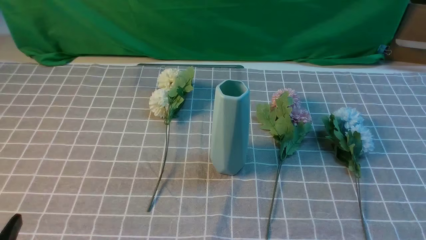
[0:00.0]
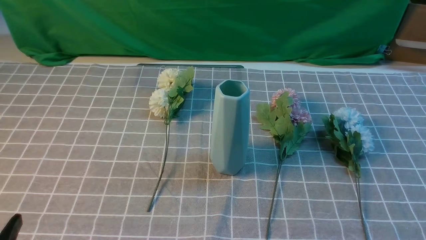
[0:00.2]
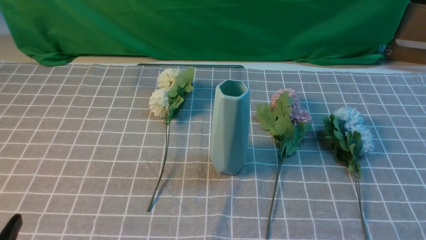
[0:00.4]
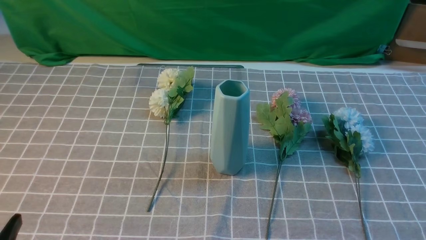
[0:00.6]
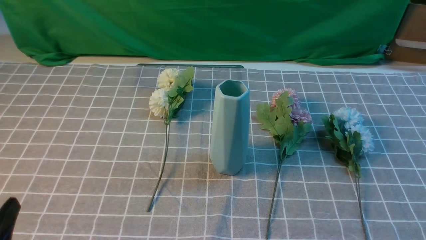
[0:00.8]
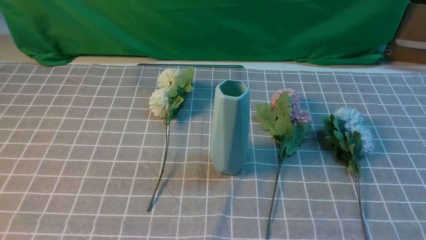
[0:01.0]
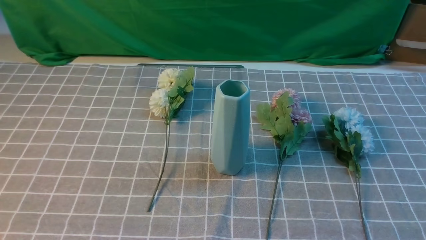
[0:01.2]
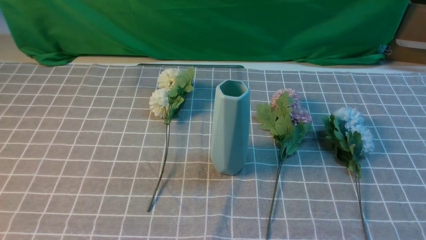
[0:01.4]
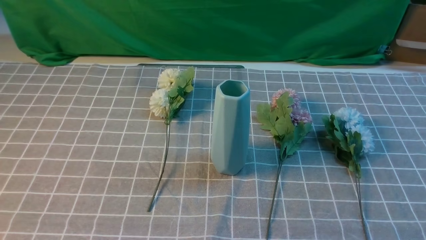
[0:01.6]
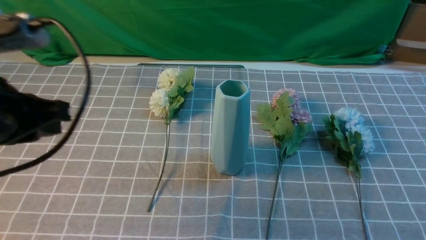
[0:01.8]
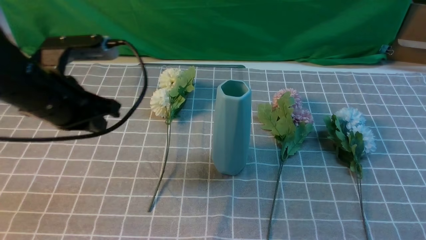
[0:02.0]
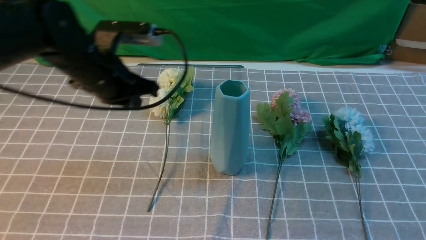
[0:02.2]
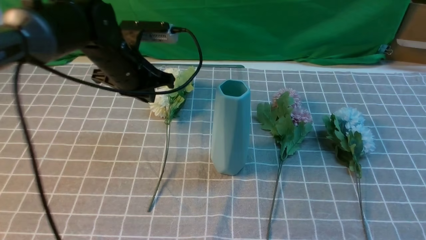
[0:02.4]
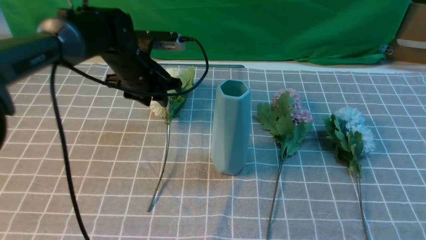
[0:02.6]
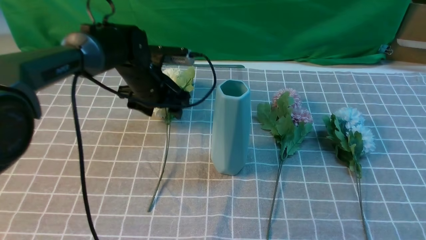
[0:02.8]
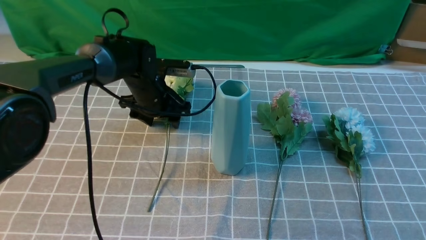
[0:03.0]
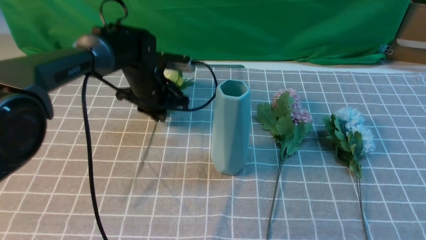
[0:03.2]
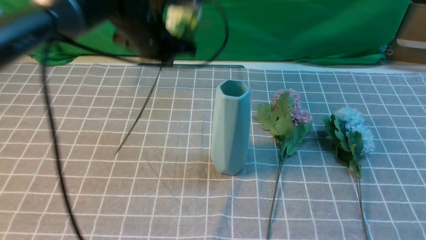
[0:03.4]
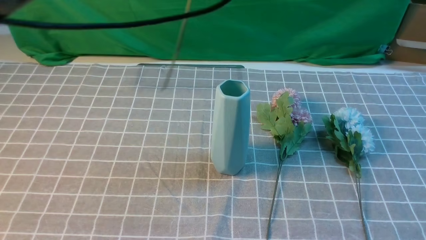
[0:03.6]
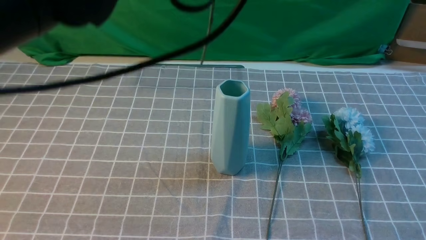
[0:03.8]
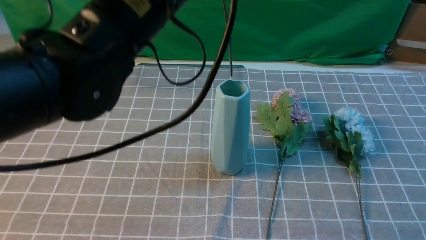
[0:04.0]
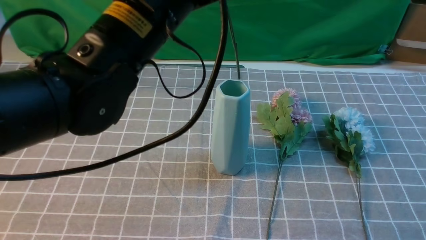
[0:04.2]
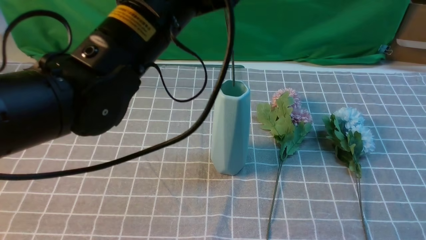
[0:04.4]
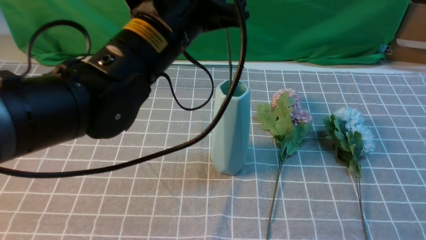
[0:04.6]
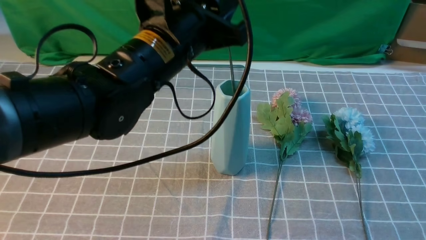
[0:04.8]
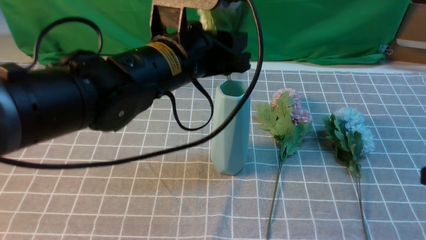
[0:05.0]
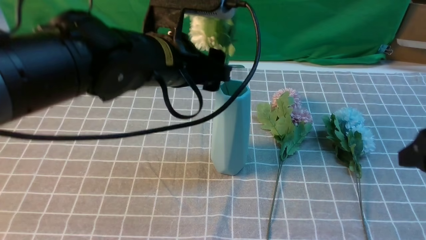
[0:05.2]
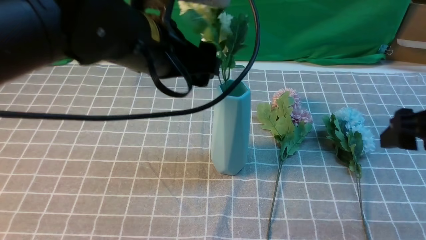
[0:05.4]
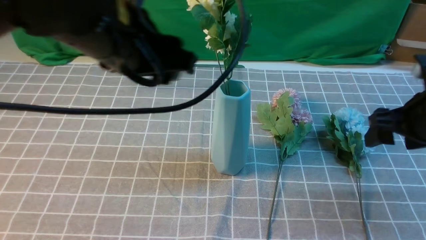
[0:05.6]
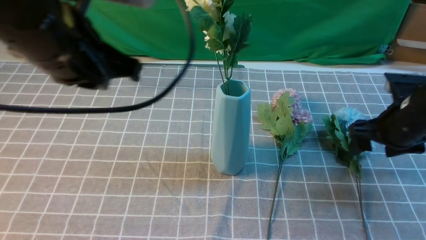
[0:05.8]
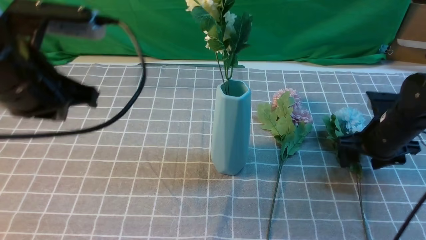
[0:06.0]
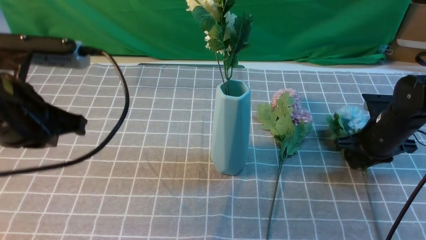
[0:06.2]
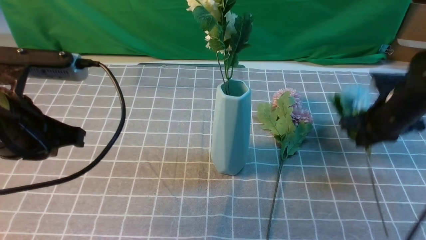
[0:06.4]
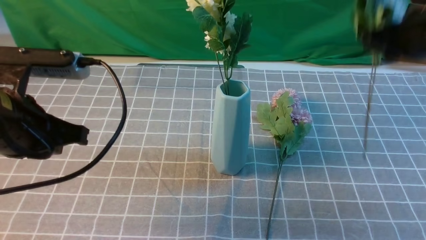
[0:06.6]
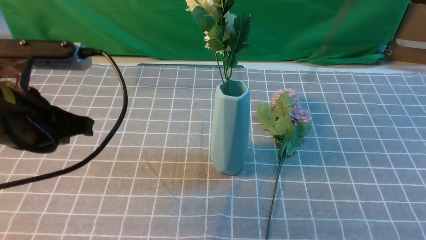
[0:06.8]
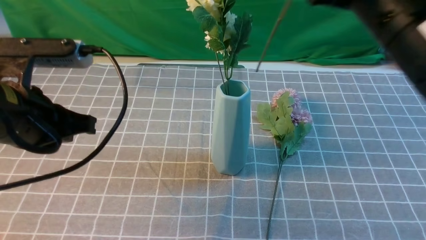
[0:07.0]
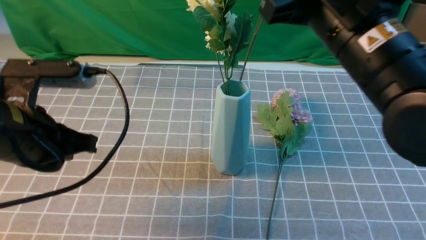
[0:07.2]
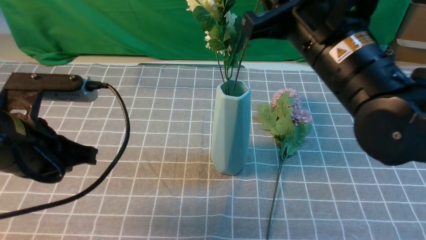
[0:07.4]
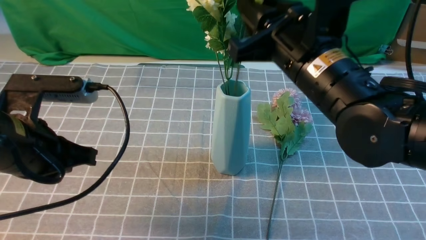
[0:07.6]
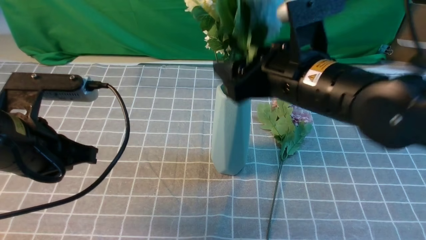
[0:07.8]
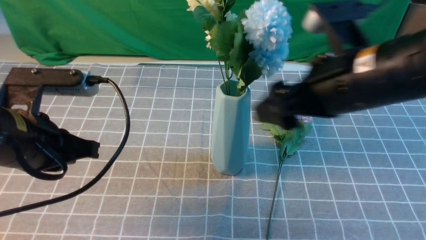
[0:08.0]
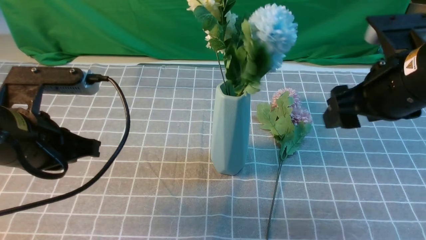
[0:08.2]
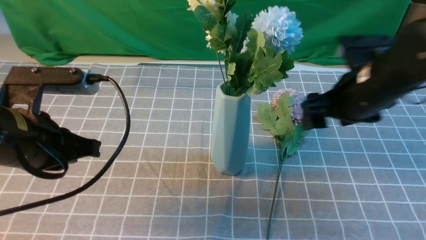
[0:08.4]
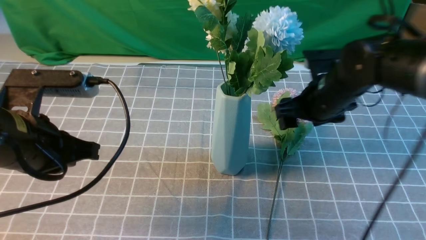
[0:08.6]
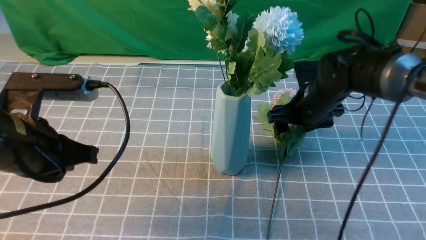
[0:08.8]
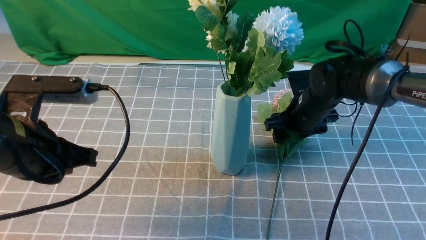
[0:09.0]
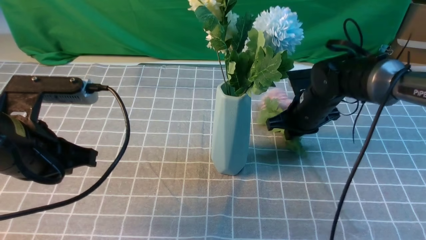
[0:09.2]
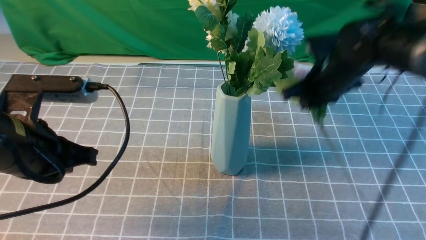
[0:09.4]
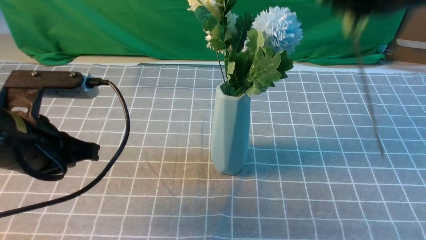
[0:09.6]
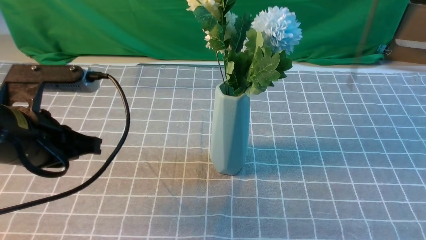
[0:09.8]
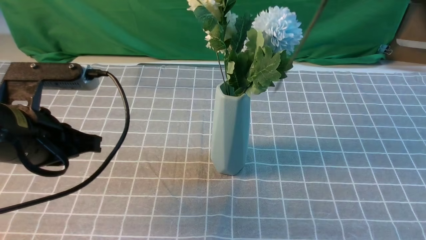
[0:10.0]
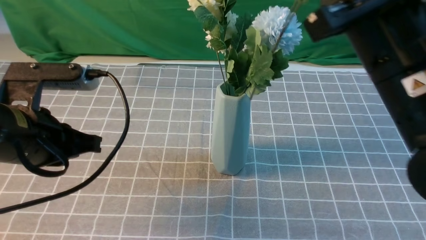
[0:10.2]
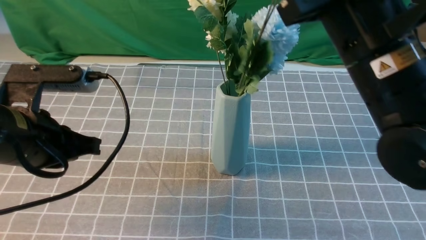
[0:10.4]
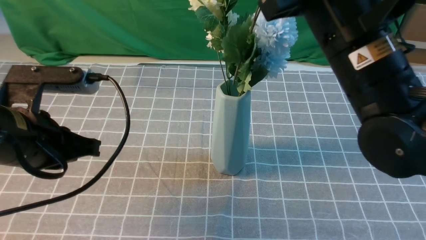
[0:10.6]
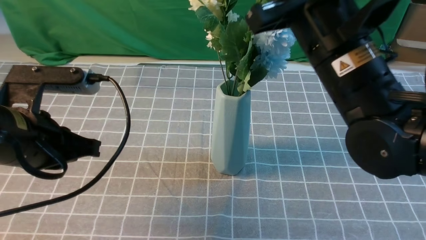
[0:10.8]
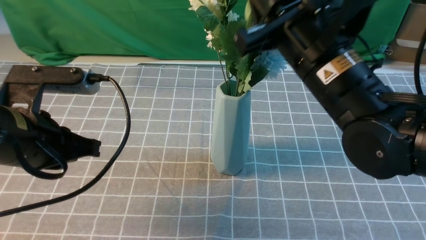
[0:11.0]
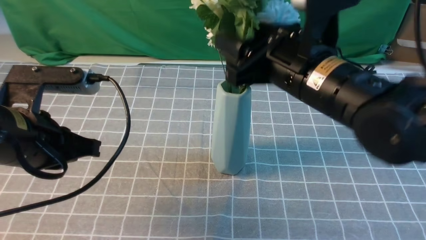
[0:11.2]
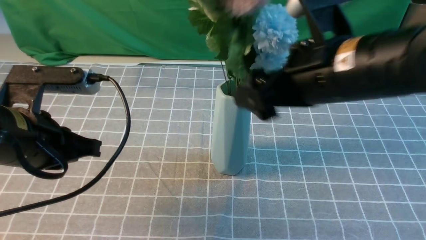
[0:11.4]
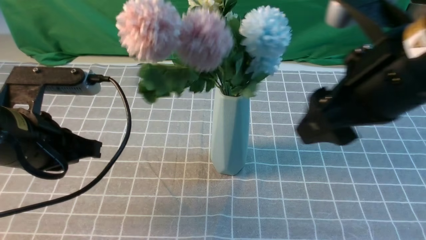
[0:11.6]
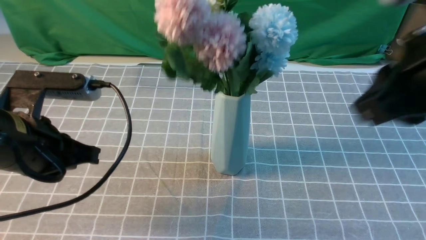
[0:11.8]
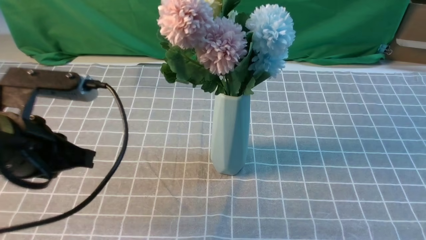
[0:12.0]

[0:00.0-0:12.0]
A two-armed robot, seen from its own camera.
Task of the whole recording: insert the flowers into the vase on the table with the grey tablecloth.
Step, 0:00.0 to 0:03.0: use the left arm to grab a bunch of fresh flowers.
Step, 0:03.2 to 0:05.4: use the left arm to insert the flowers into the vase.
Step, 0:05.6 to 0:06.2: use the right arm to grab a bunch of fresh flowers.
Step, 0:06.4 to 0:08.0: use the right arm to insert the flowers into the vase.
Step, 0:08.4 to 0:09.2: use the right arm to grab a bunch of fresh flowers.
Step, 0:09.4 to 0:11.4: use the right arm to insert the flowers into the vase.
0:01.6 to 0:03.0: The right gripper travels upward and forward by about 10 cm; the left gripper heads forward and downward, covering roughly 35 cm, and opens.
0:03.0 to 0:04.4: The left gripper is displaced upward and backward by some 25 cm, and closes its fingers.
0:04.4 to 0:06.0: The left gripper goes approximately 10 cm to the left, and opens, then closes again. Meanwhile the right gripper travels forward and downward by about 25 cm, and opens up.
0:06.0 to 0:07.6: The left gripper shifts some 5 cm downward. Meanwhile the right gripper goes approximately 25 cm to the left, upward and backward, and closes and opens again.
0:07.6 to 0:09.0: The right gripper heads downward and forward, covering about 20 cm, and opens, then closes once more.
0:09.0 to 0:10.4: The right gripper is displaced upward and backward by some 25 cm, and closes up.
0:10.4 to 0:12.0: The right gripper is displaced backward, to the right and upward by roughly 20 cm, and opens, then closes once more.

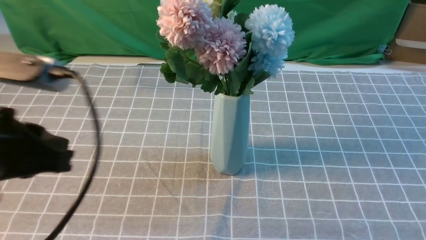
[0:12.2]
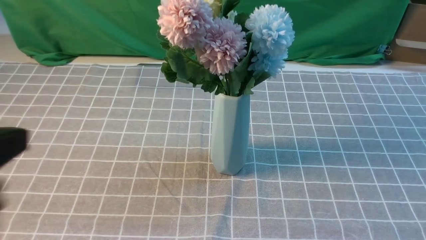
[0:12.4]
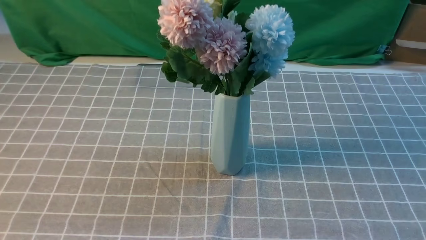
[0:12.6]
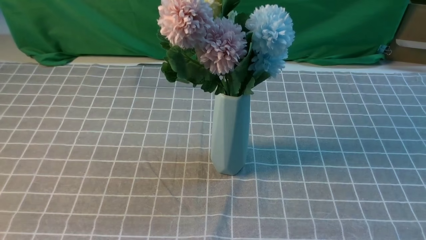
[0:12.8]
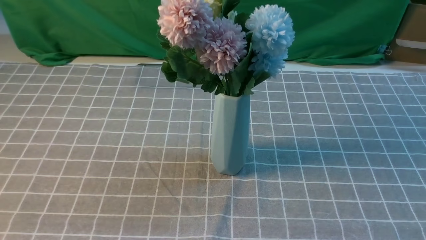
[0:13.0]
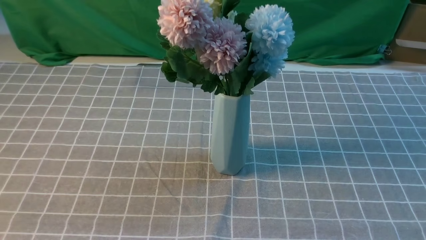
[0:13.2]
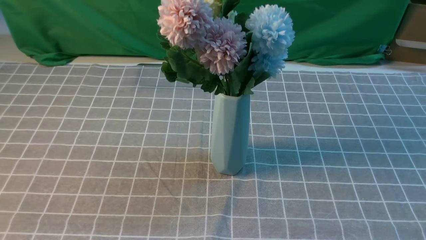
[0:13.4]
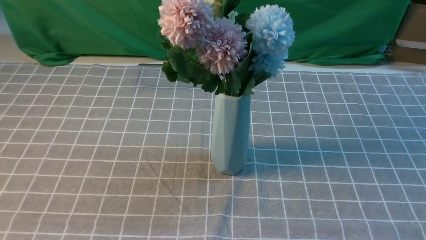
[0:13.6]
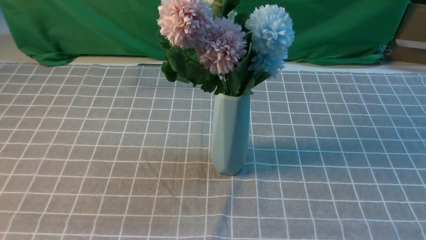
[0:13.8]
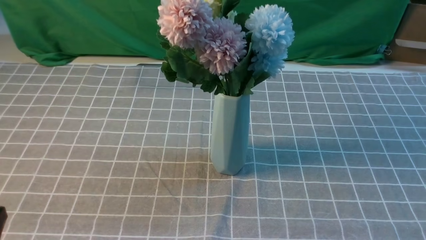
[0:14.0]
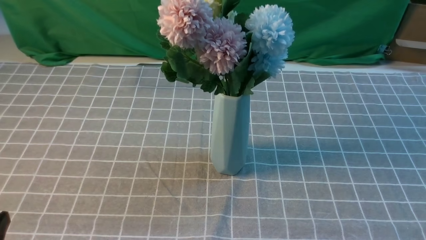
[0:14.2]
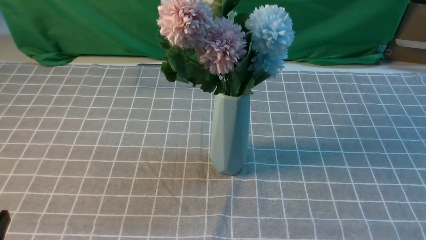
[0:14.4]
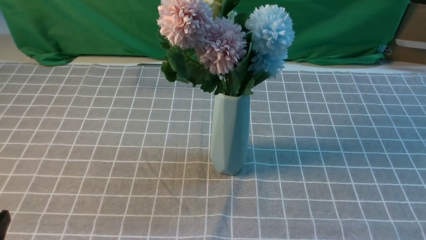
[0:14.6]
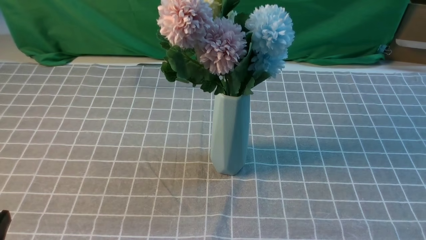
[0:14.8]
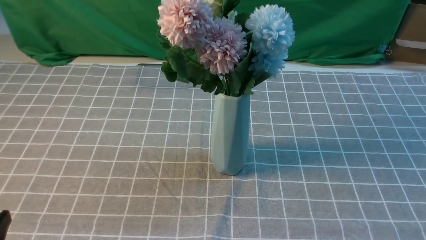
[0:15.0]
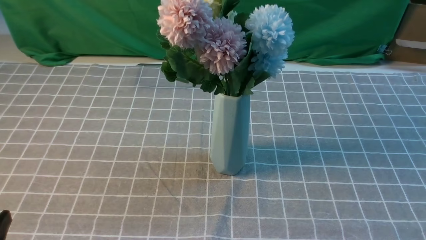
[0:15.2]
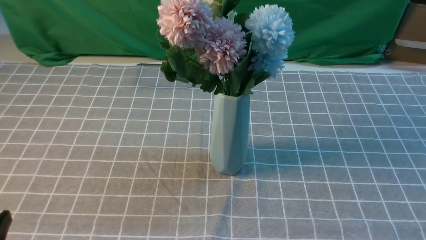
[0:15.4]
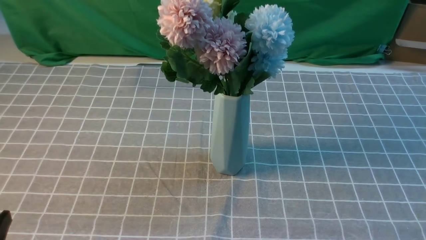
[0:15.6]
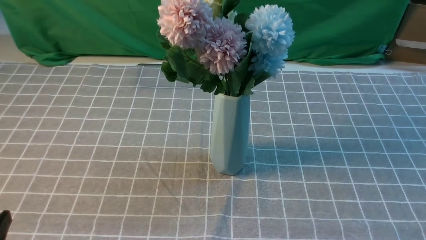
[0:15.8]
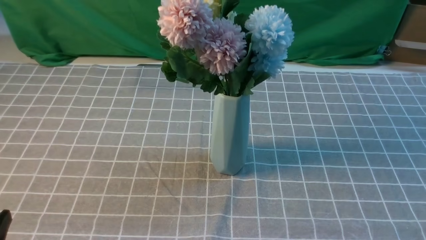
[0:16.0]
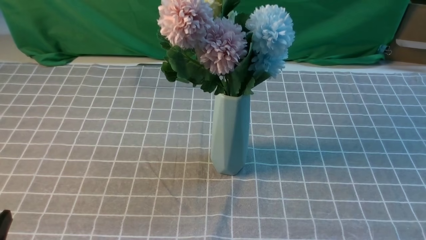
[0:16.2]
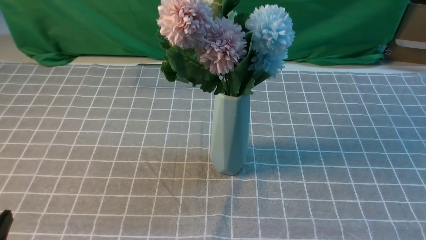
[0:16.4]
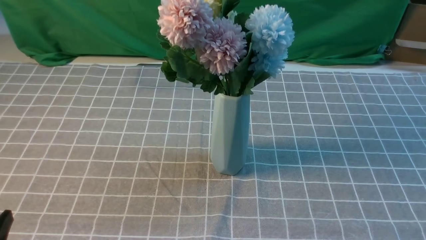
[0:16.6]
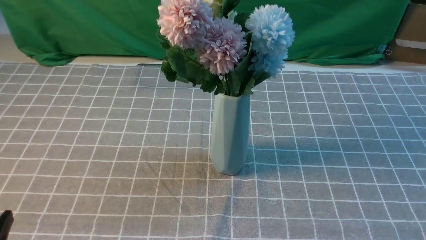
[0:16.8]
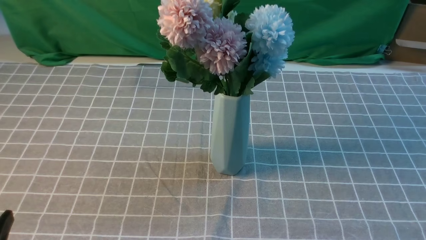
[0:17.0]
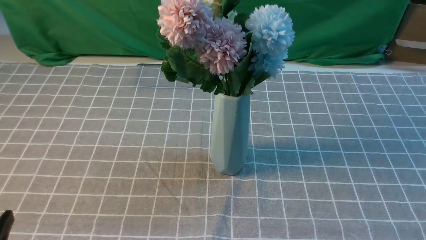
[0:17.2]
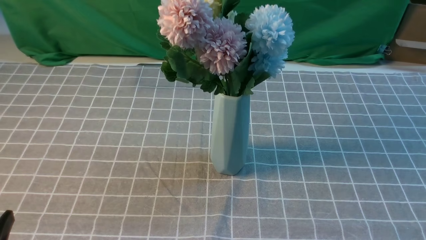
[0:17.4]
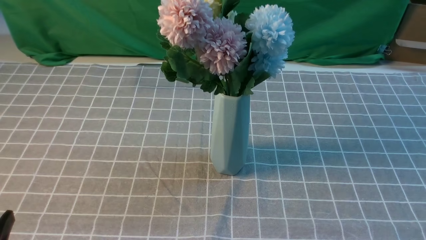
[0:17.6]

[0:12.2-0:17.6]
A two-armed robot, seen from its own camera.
Task of the whole recording: insert the flowers into the vase on the table with the grey tablecloth.
0:12.2 to 0:13.6: The right gripper heads downward, covering roughly 5 cm. Meanwhile the left gripper shifts about 10 cm backward.
0:16.2 to 0:17.6: Both grippers stay put.
